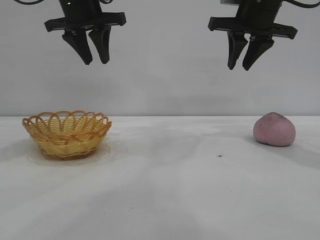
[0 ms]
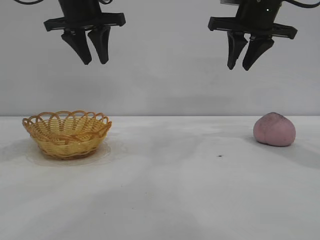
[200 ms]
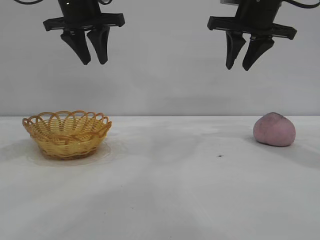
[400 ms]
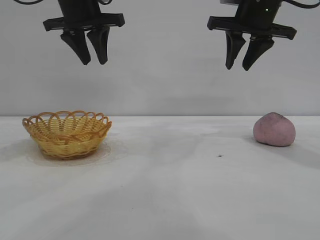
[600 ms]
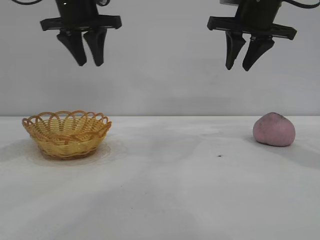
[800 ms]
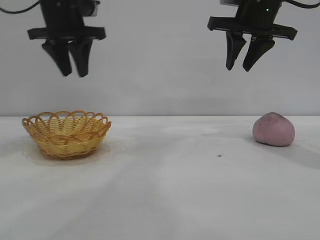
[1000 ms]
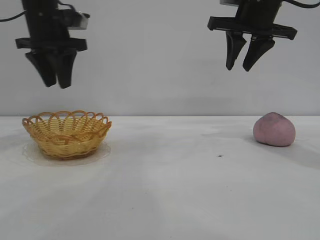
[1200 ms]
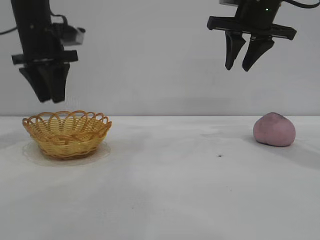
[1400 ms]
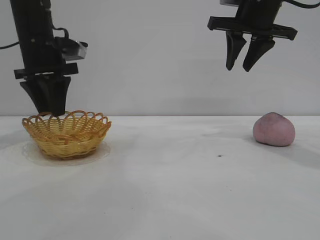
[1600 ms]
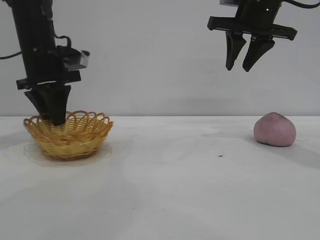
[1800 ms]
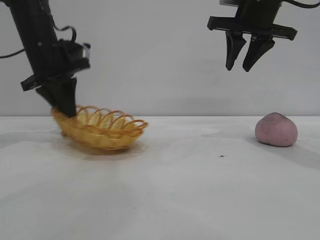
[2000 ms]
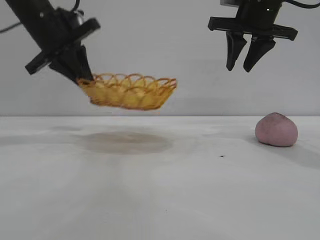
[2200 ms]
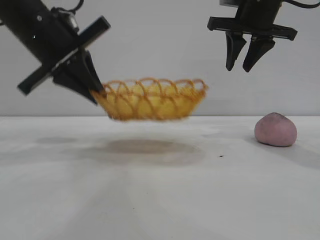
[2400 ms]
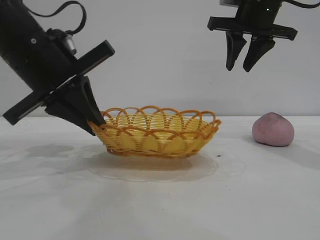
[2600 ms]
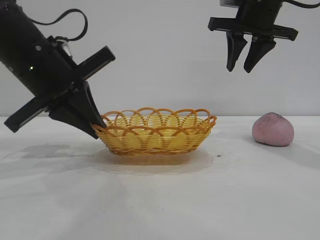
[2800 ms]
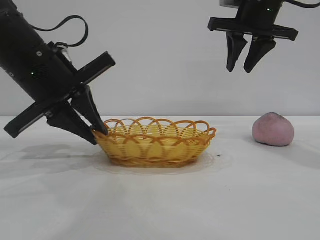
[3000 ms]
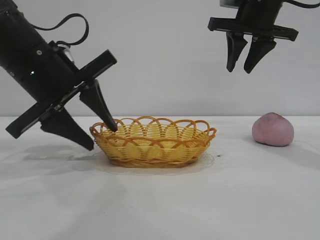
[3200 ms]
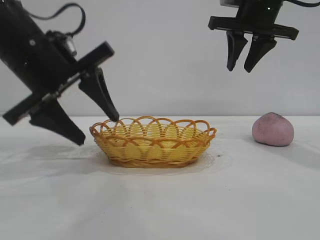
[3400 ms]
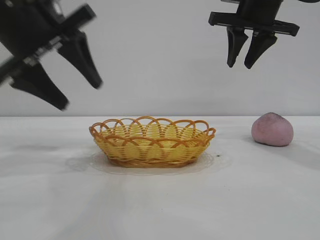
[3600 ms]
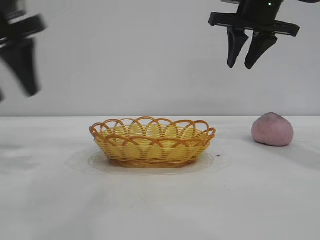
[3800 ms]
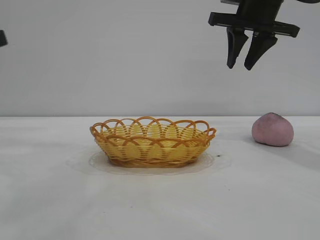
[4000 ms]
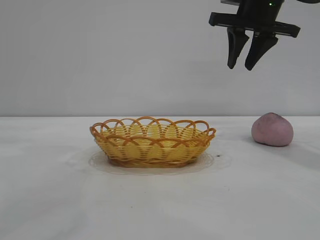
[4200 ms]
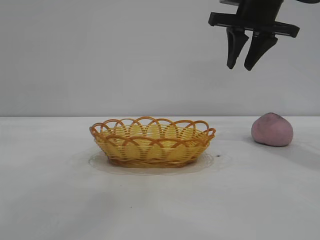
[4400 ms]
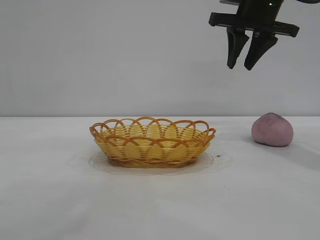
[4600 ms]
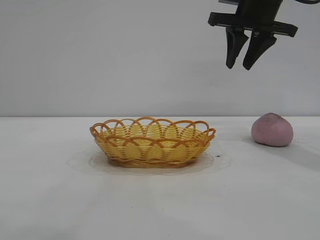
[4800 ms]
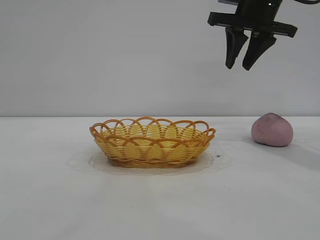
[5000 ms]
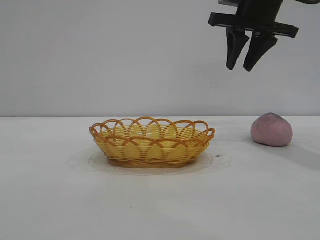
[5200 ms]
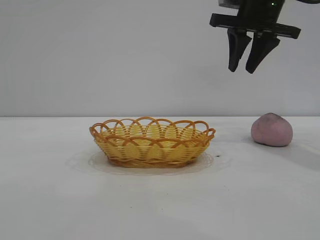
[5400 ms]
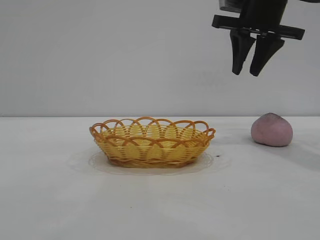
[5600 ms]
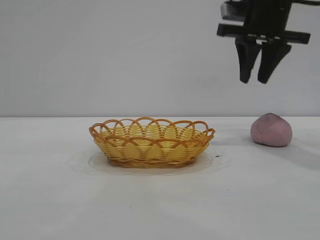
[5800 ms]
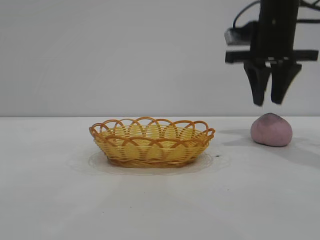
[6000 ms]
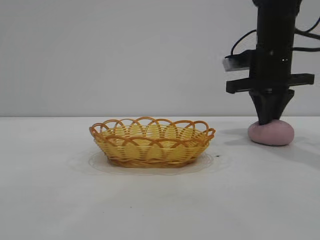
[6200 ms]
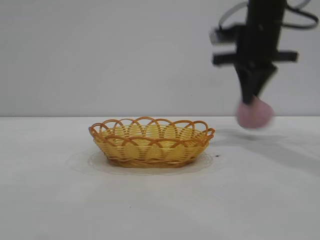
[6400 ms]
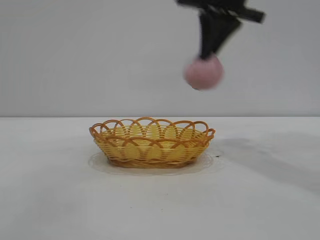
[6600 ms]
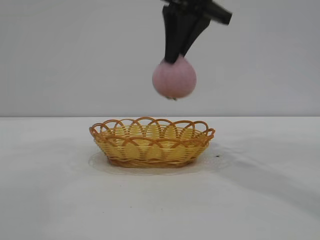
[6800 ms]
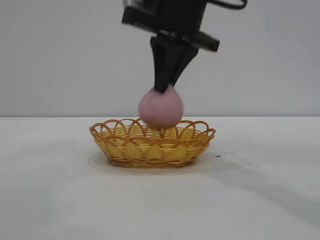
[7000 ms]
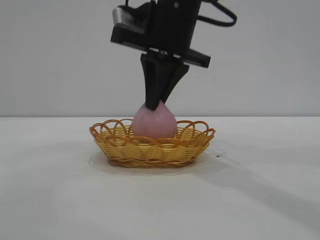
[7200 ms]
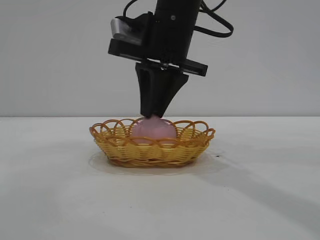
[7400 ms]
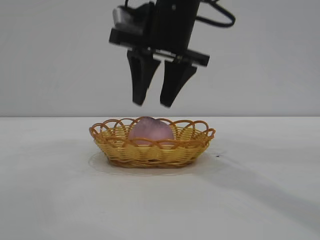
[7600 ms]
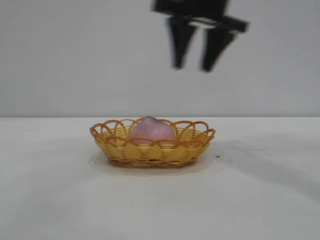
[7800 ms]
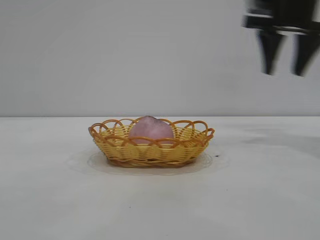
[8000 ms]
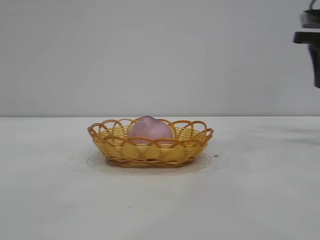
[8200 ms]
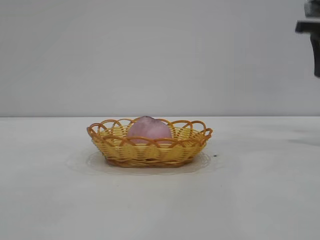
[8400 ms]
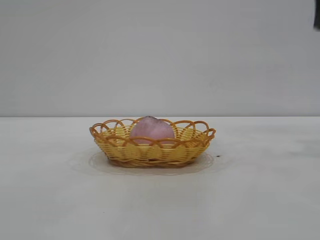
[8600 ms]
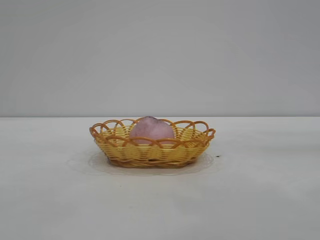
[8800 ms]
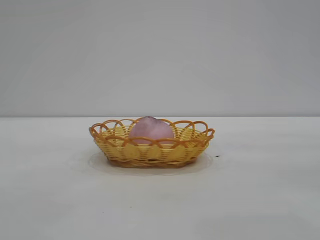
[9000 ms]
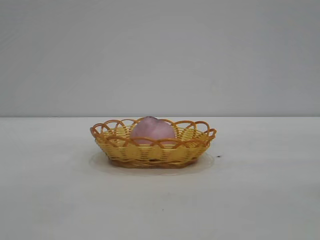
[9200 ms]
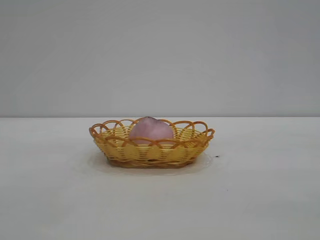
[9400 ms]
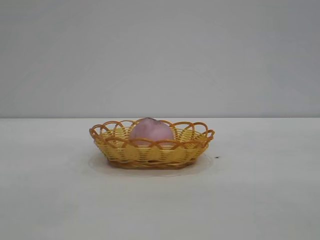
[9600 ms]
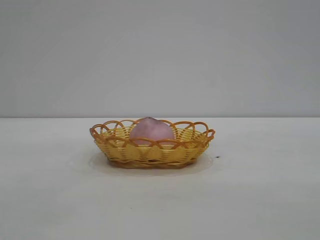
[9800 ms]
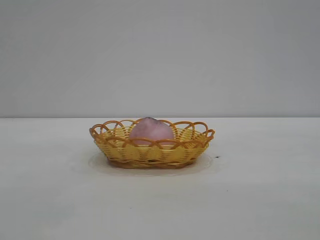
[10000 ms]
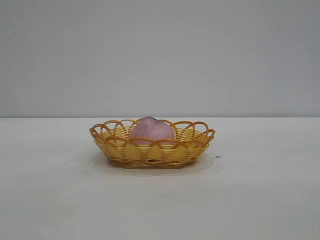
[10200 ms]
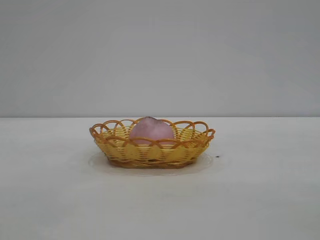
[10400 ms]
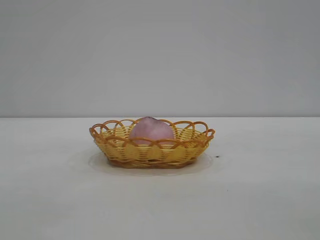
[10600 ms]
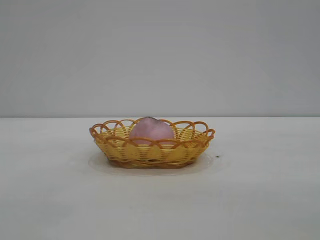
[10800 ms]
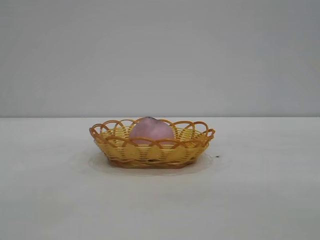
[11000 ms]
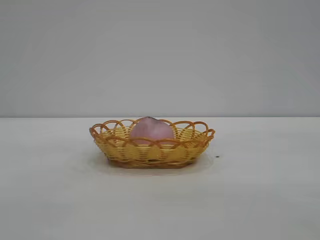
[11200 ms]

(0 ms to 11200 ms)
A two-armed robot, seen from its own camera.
Task of the whole recording: pick up the peach and put it into the basket.
Step, 0 ms - 3400 ms: Move the basket to the center of view.
Step, 3600 ms - 6200 ms: Pick up the peach.
Step, 6600 ms - 7600 ms: place the peach into the basket.

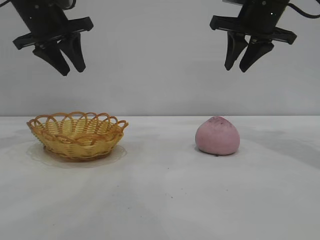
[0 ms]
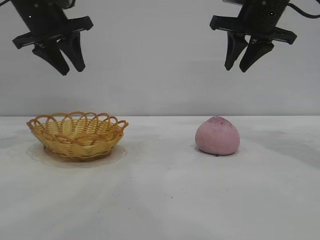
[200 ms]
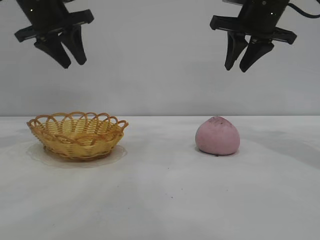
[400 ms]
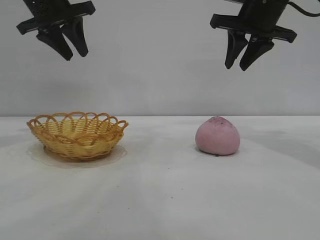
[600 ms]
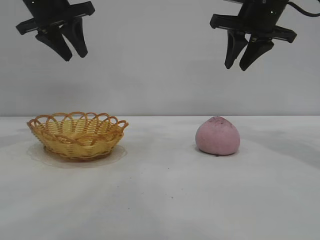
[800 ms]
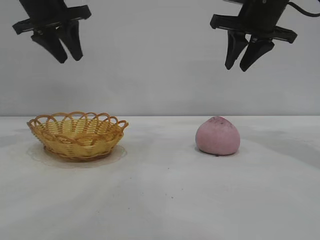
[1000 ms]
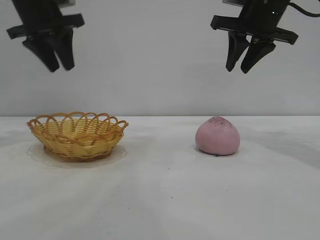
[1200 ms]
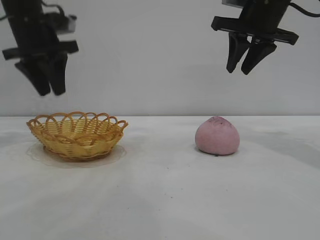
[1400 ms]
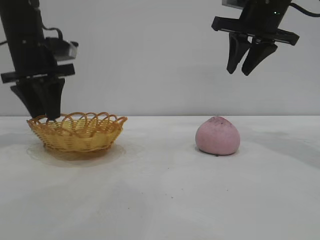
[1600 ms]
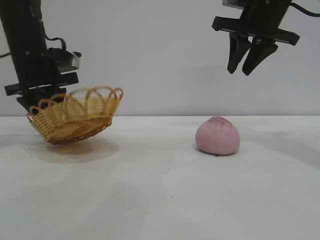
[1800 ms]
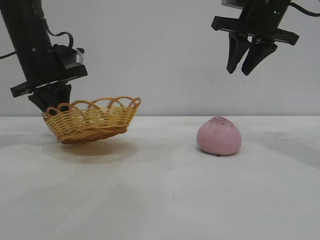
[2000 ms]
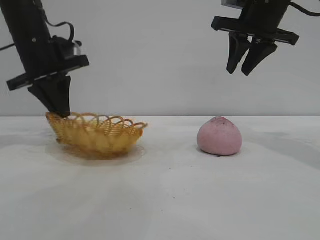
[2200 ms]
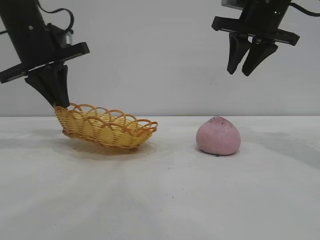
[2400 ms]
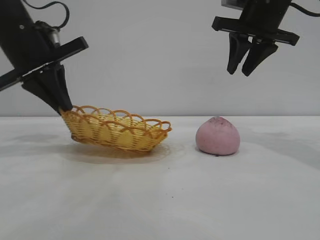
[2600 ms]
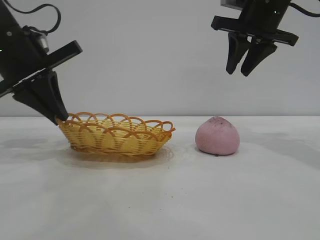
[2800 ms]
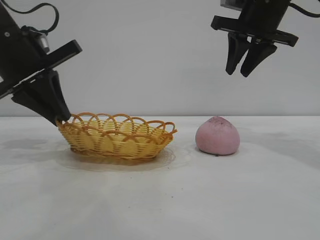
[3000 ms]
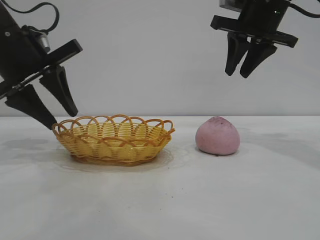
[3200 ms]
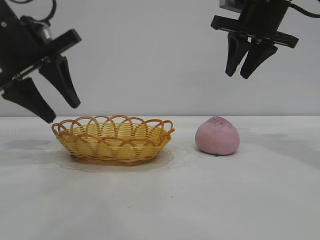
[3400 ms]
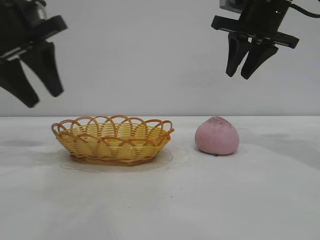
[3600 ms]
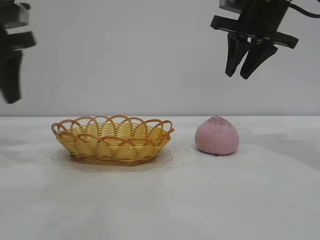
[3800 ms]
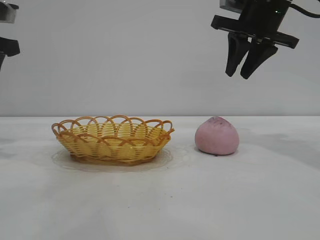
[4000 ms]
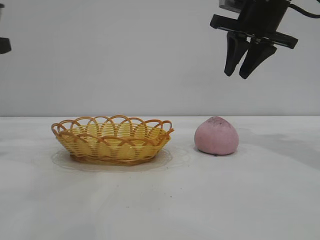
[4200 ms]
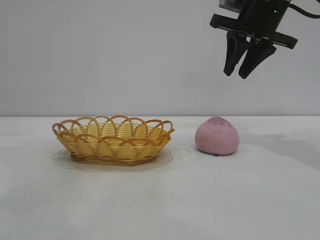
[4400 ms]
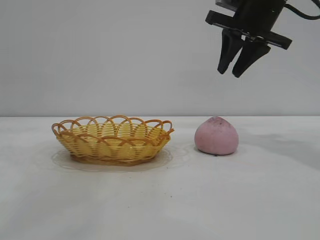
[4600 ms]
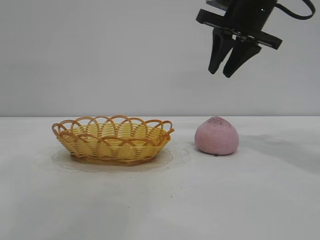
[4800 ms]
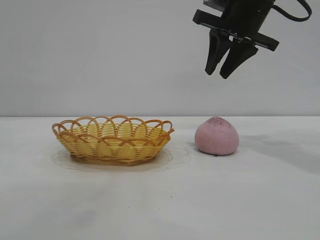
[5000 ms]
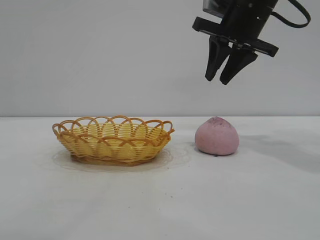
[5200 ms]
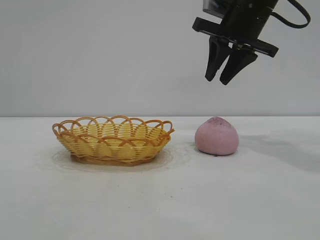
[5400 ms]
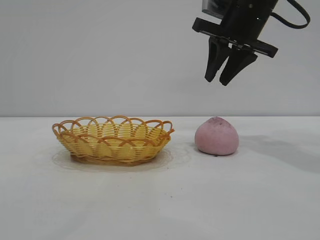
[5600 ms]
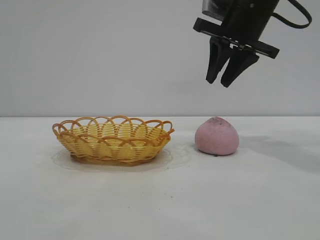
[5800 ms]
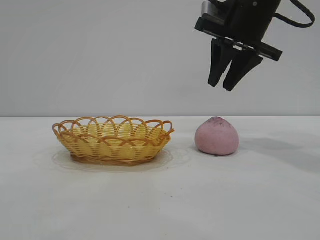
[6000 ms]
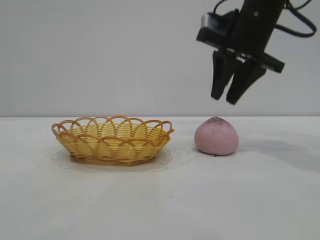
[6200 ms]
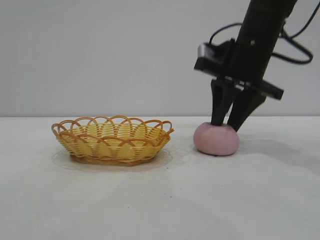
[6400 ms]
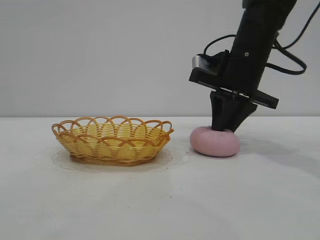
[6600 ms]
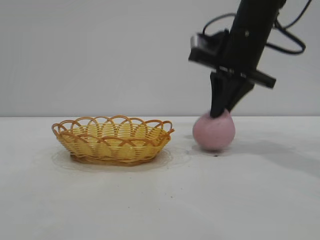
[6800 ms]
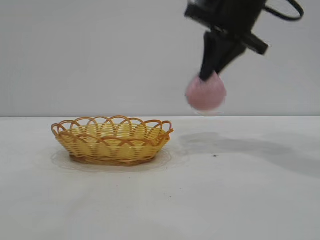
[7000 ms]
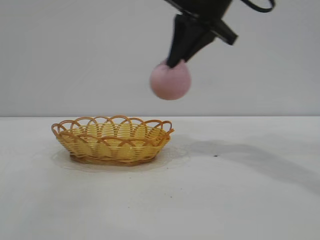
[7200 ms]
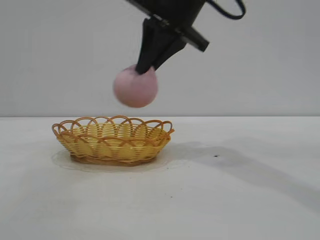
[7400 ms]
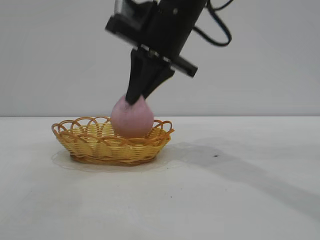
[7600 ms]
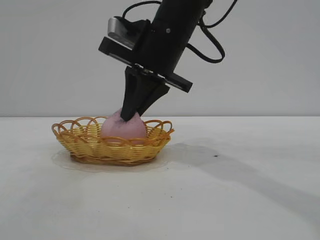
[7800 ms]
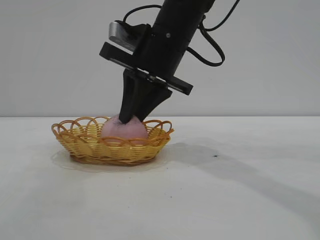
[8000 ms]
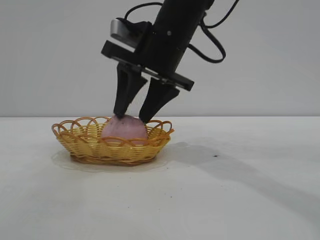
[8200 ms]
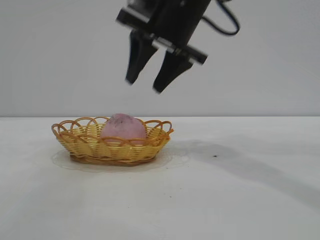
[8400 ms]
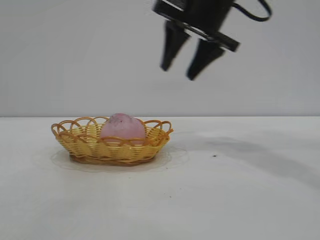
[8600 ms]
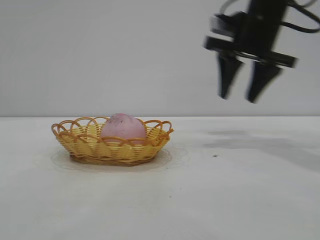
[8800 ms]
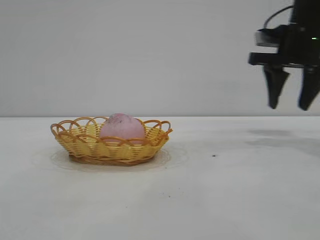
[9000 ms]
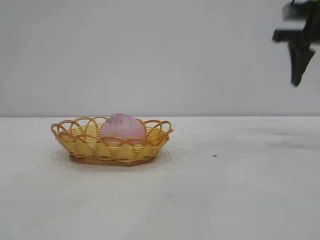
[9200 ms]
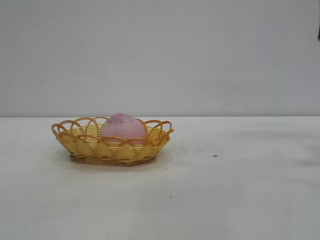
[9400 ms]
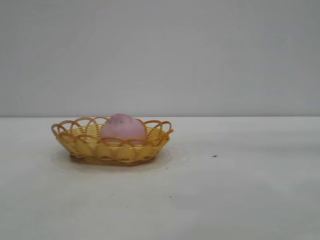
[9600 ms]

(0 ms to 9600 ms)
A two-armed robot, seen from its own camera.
Task of the whole recording: pick up the peach and put it into the basket.
Step, 0 ms - 3200 ms: Move the basket to the center of view.
Step, 3400 ms - 6800 ms: Pick up the peach.
Step, 7000 ms - 8400 ms: place the peach into the basket.
